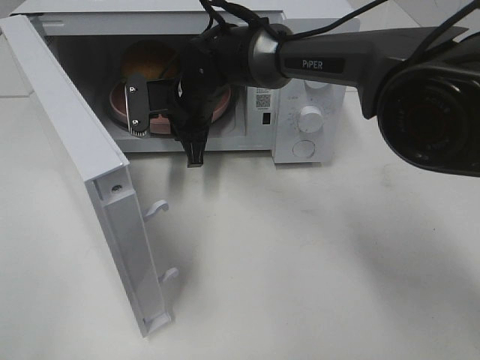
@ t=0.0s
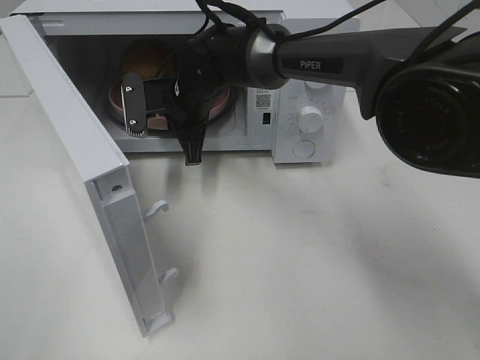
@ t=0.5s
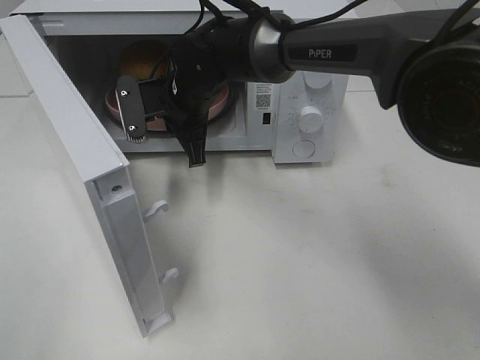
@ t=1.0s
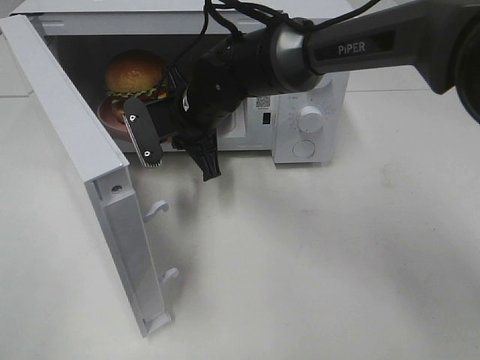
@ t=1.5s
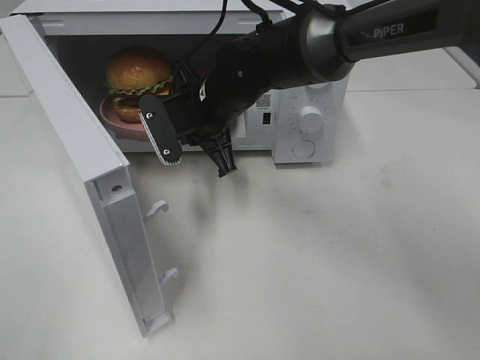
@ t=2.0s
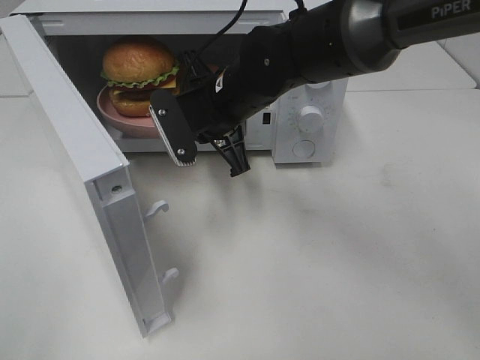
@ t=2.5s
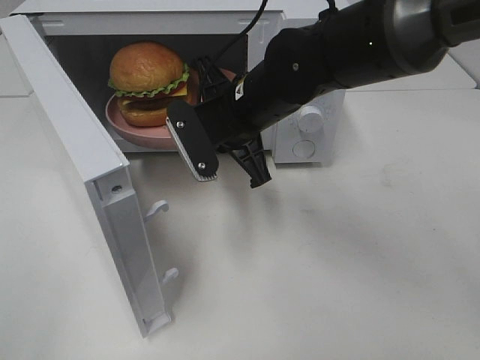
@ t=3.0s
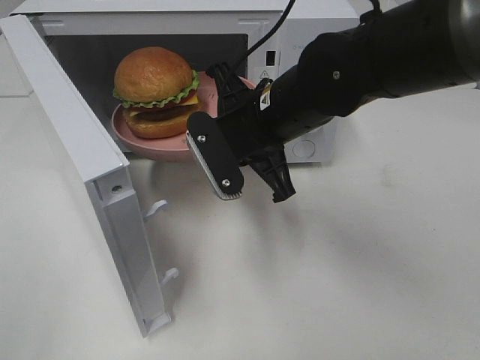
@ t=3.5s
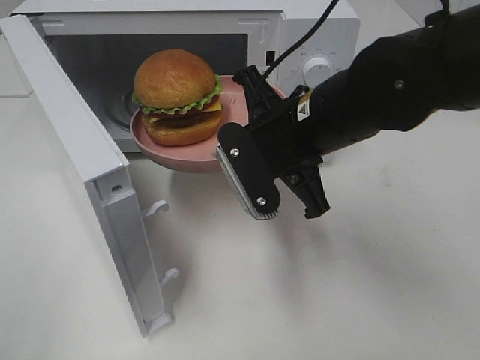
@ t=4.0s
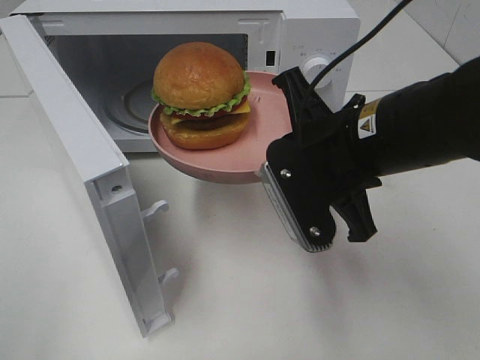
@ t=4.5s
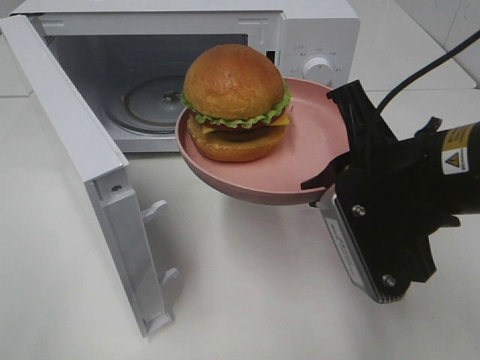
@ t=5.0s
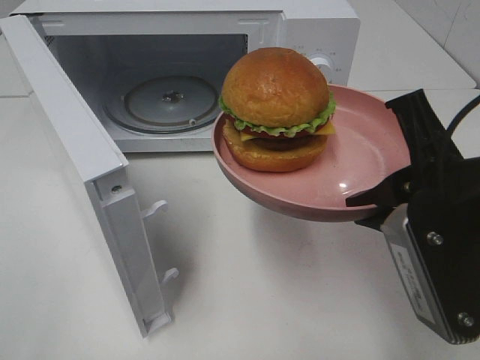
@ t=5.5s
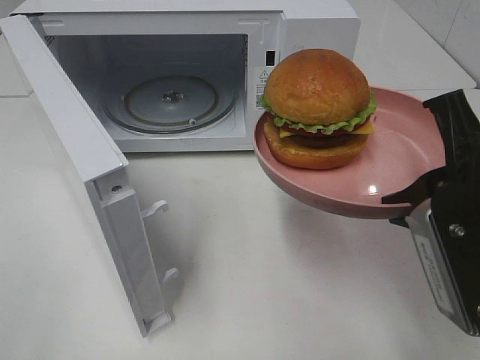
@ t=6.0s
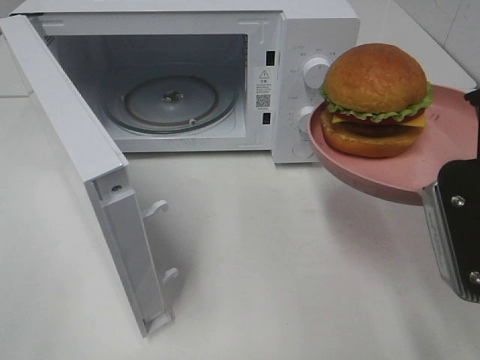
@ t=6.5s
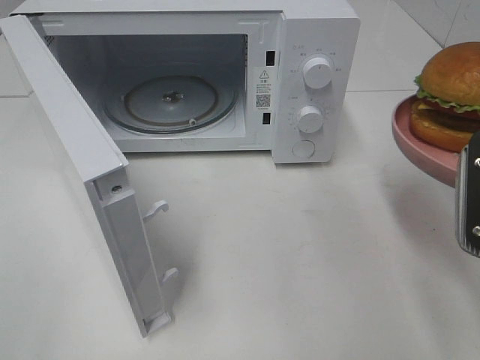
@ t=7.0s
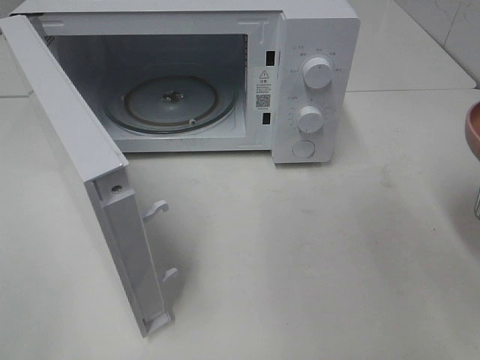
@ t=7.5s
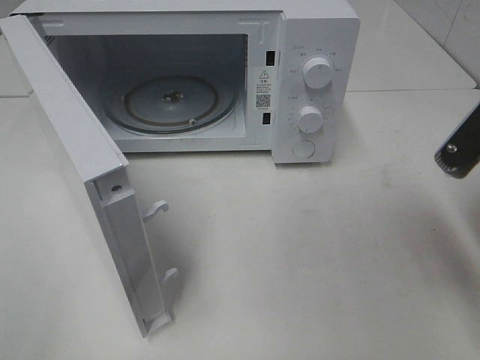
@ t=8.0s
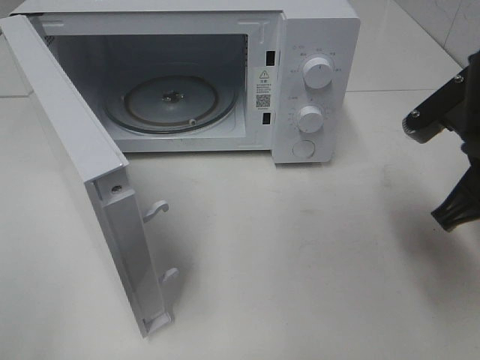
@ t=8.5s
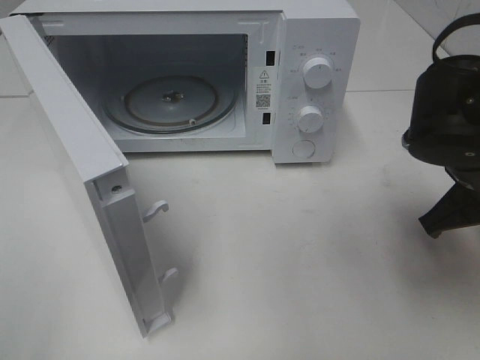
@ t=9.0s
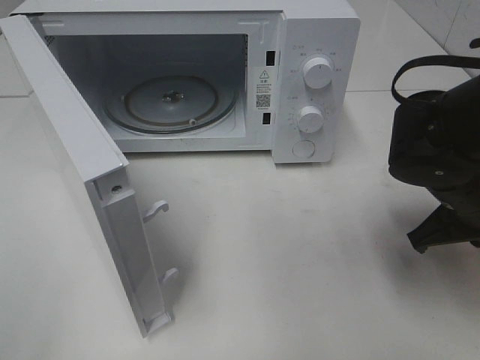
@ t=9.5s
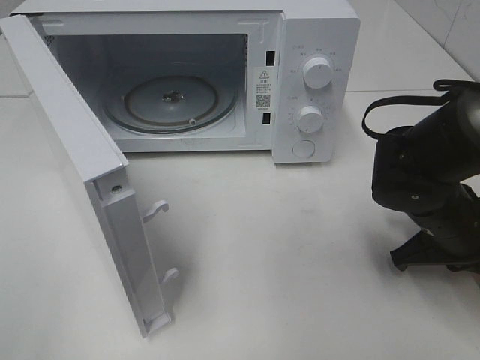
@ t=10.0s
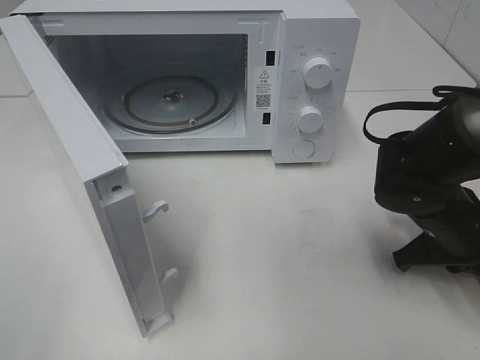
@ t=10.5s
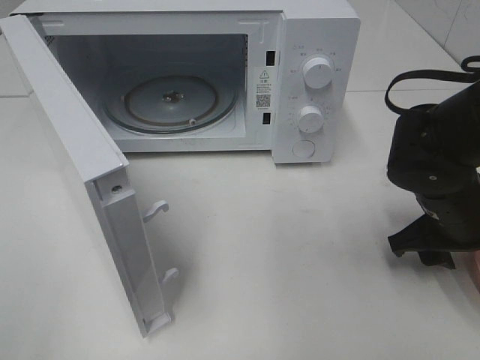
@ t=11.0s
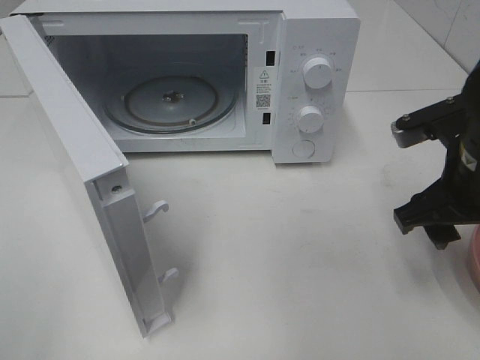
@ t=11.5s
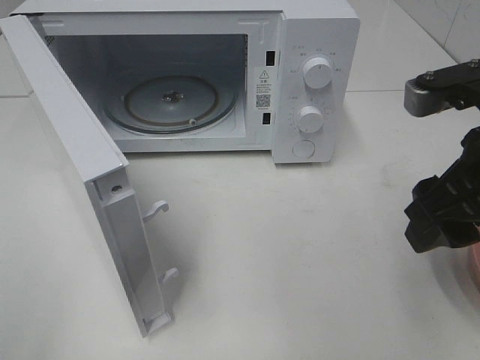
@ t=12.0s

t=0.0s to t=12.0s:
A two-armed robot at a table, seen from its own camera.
Task of the whole recording: Heat the burger.
Step, t=0.5s to t=11.5s: Right hand: place the plate on the table.
t=0.0s to t=2.0s: The right gripper shifts roughly 5 cm backward.
t=2.0s to t=4.0s: The right gripper is displaced backward and to the right by some 15 cm.
t=4.0s to t=6.0s: The right gripper moves backward and to the right, approximately 15 cm.
t=6.0s to t=8.0s: The right gripper moves some 5 cm.
t=8.0s to t=10.0s: The right gripper heads downward and forward, covering roughly 15 cm.
t=10.0s to t=12.0s: The right gripper travels upward and backward by approximately 20 cm, and opens up.

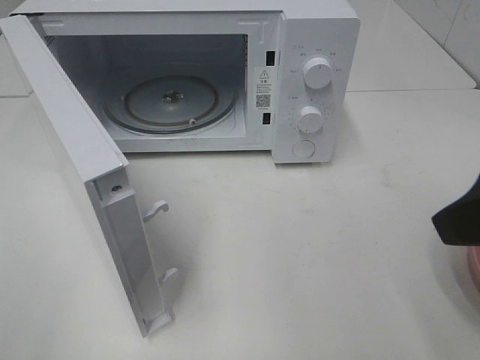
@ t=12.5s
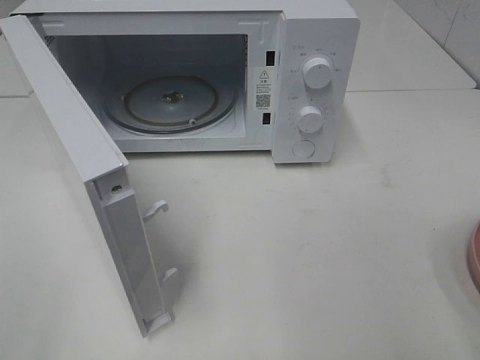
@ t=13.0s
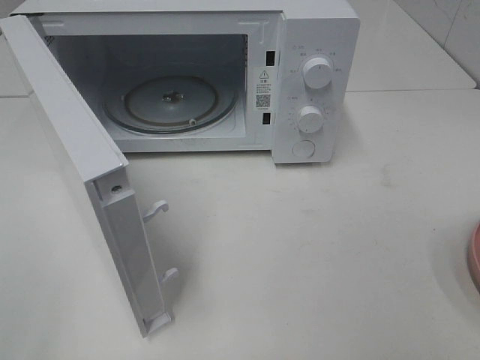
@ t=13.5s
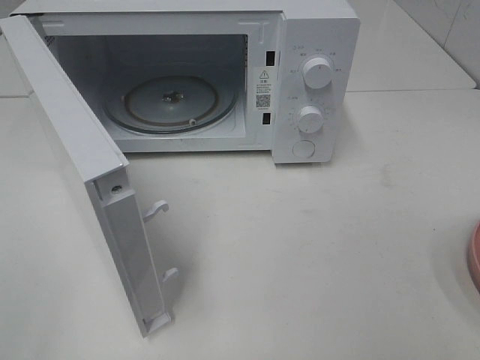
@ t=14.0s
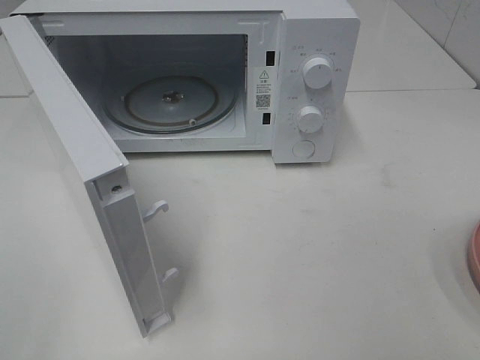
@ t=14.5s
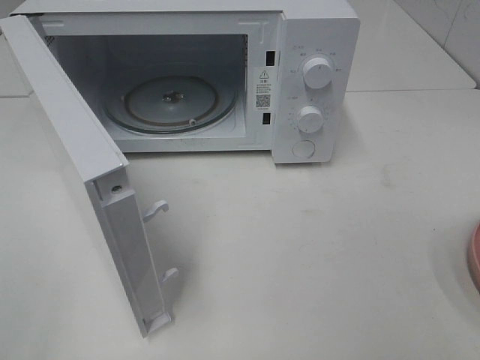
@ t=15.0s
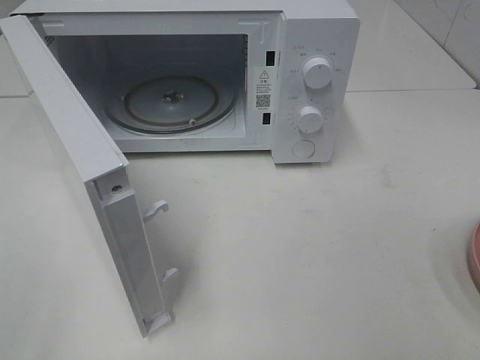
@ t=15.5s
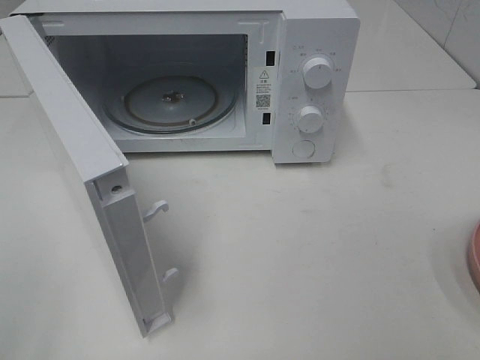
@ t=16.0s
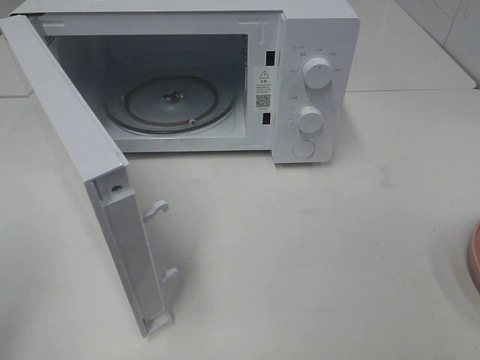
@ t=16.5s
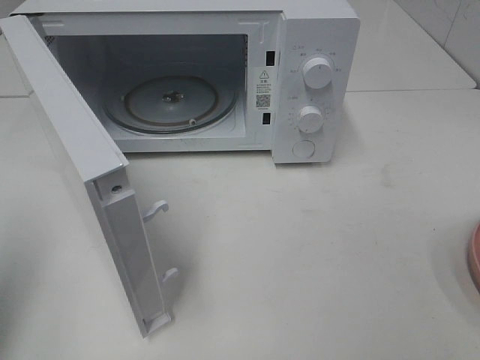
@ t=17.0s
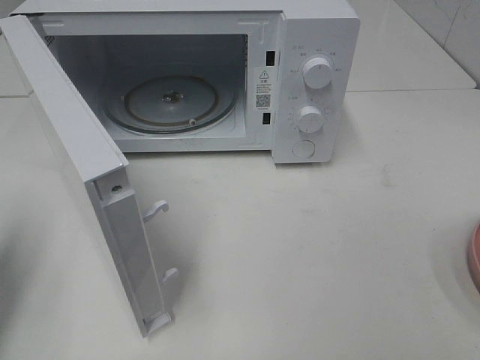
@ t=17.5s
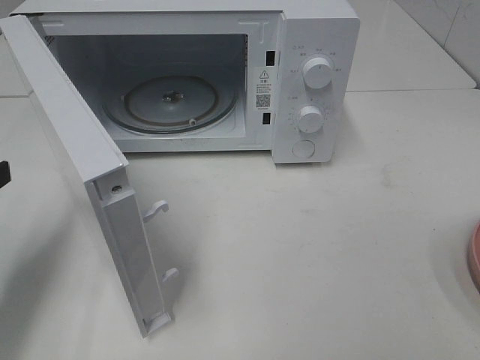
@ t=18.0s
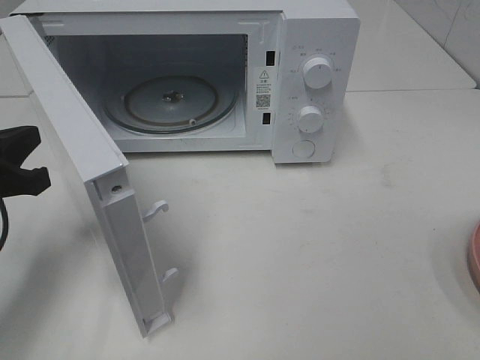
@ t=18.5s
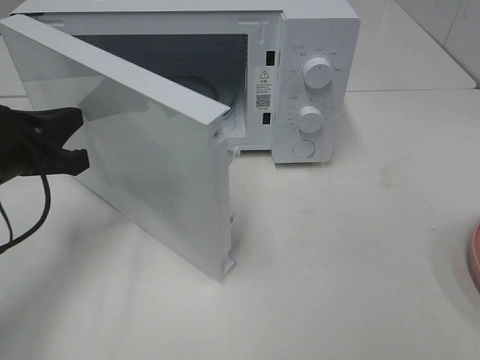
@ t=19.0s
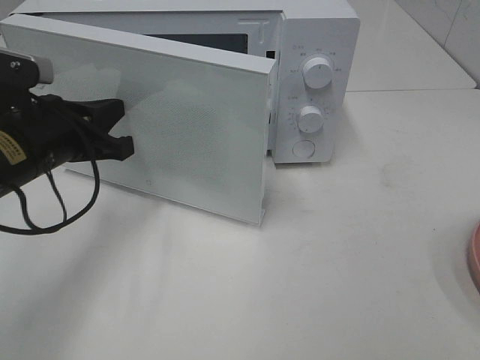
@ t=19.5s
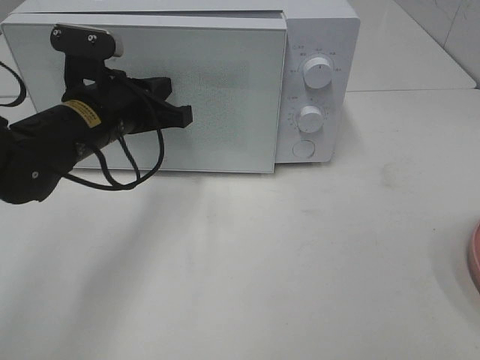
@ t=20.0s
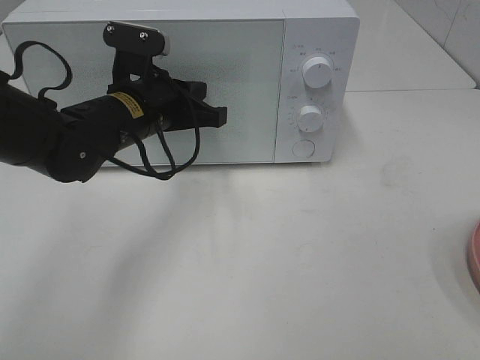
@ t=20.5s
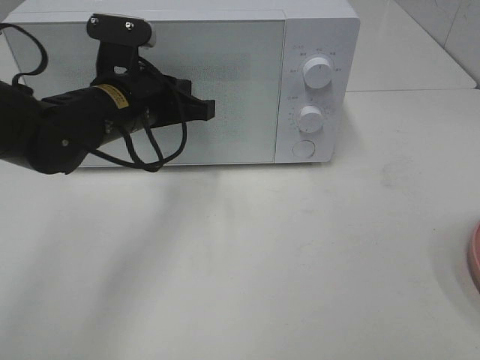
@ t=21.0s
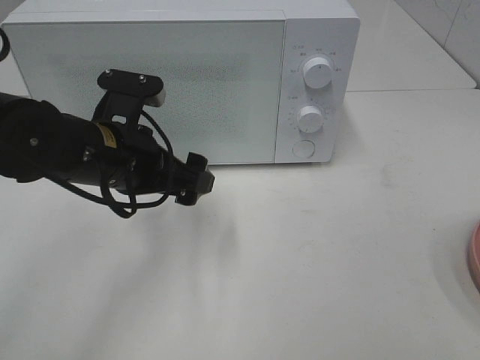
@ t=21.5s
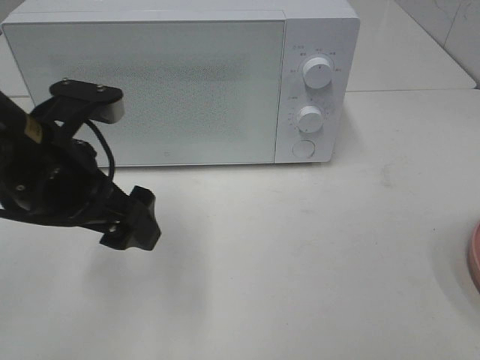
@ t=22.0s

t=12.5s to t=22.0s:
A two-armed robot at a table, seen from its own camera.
Task of the whole recording: Heat the burger.
Step, t=12.5s to t=21.5s: Right hand: twist timer button.
t=12.5s to t=14.5s: The right gripper shifts roughly 15 cm backward and to the right.
t=16.5s to t=18.0s: The left gripper travels forward and downward by about 20 cm.
t=18.0s to t=20.0s: The left gripper travels to the right and forward by approximately 20 cm.
t=20.0s to t=22.0s: The left gripper travels backward by roughly 10 cm, and opens.

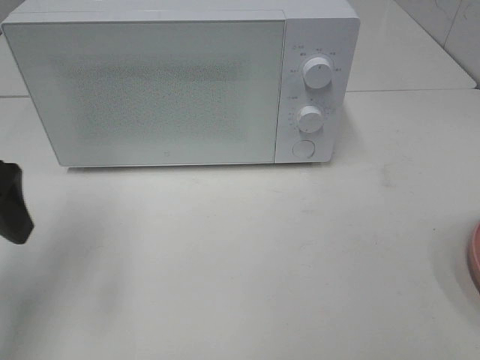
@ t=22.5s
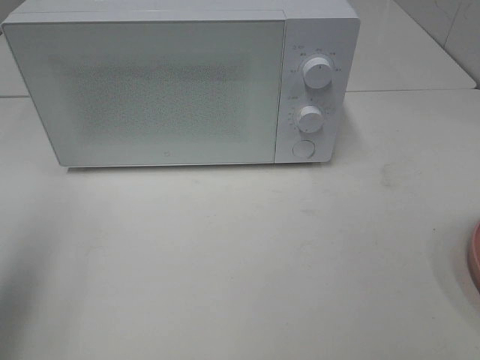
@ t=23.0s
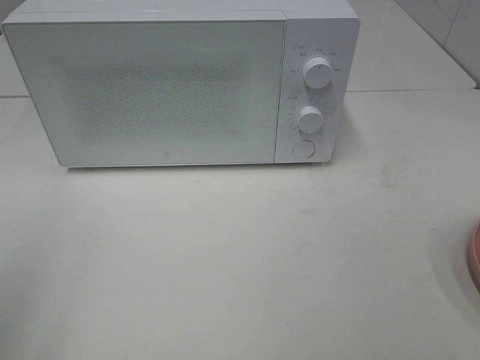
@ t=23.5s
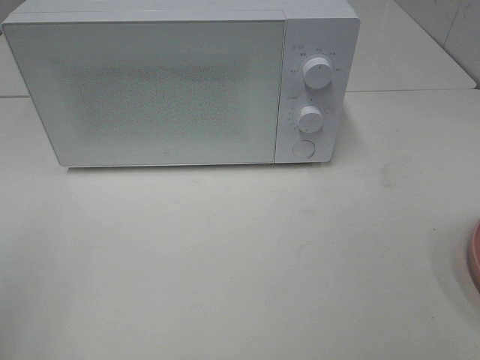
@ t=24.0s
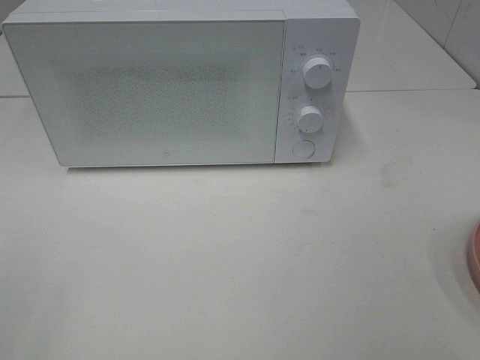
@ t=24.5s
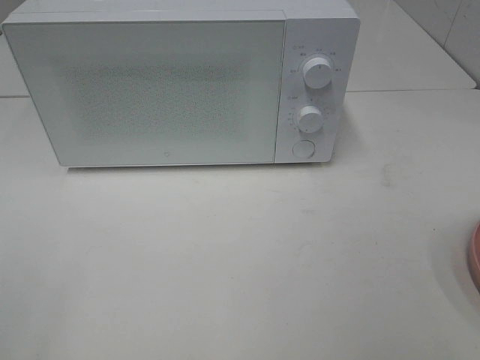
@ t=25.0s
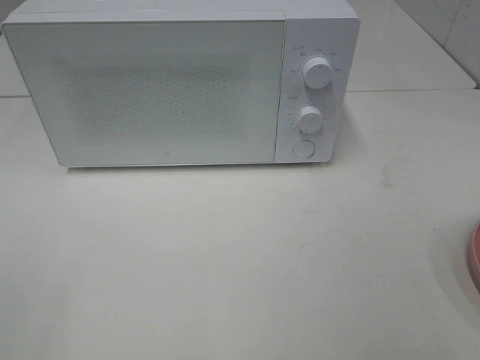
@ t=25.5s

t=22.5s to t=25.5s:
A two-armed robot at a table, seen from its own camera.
Task of the whole recording: Heat the burger.
t=22.5s to t=24.0s: The left gripper goes some 15 cm backward.

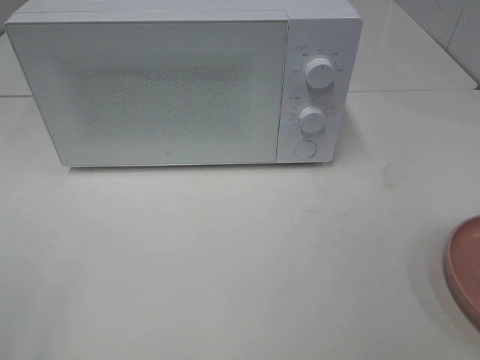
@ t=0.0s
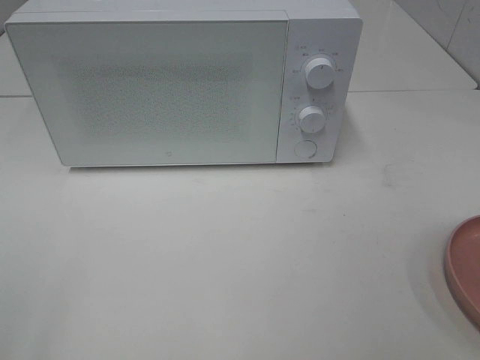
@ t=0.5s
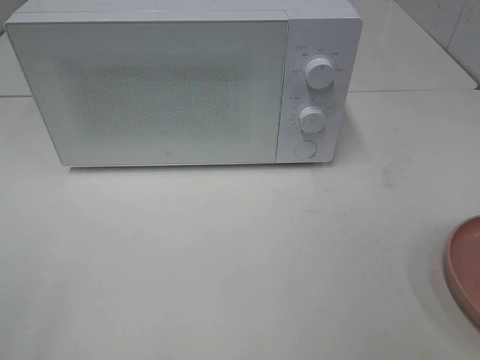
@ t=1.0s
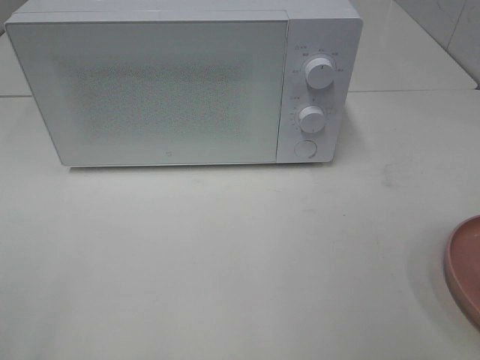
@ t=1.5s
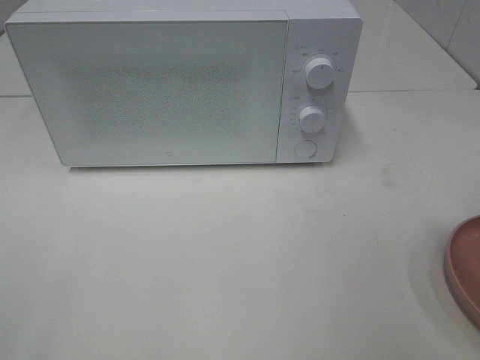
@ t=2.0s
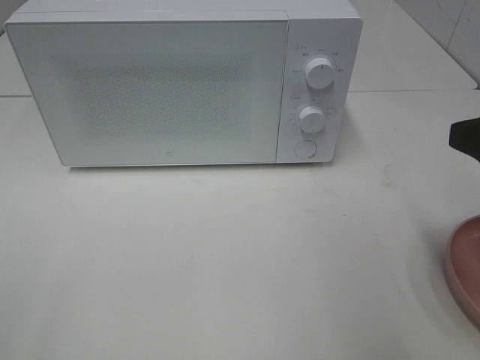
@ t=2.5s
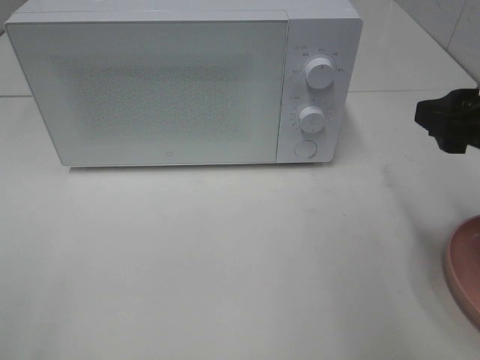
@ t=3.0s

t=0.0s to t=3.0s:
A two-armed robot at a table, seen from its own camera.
Task of the whole recording: Heat the burger.
t=1.5s to t=3.0s: The right gripper shifts about 15 cm forward and downward.
